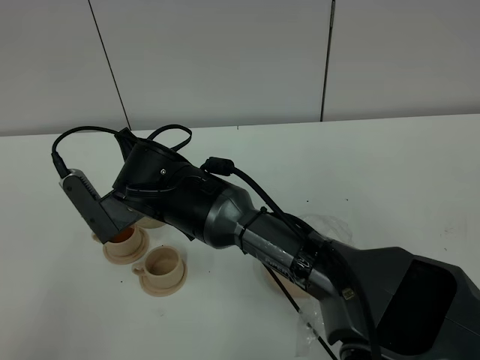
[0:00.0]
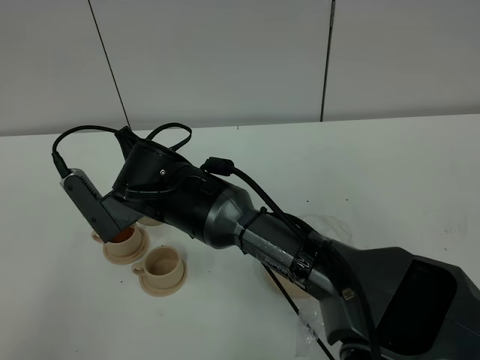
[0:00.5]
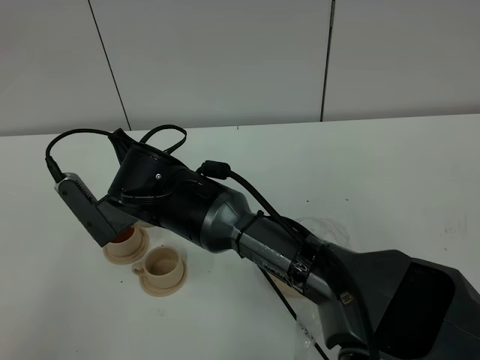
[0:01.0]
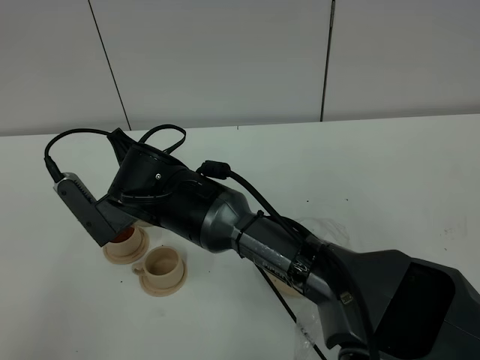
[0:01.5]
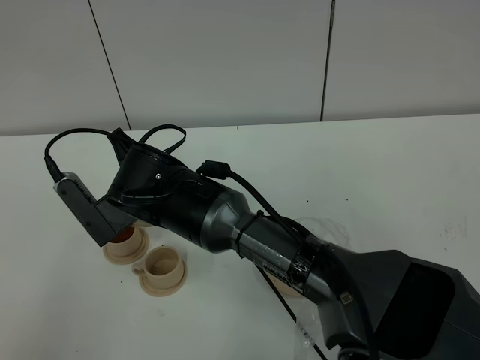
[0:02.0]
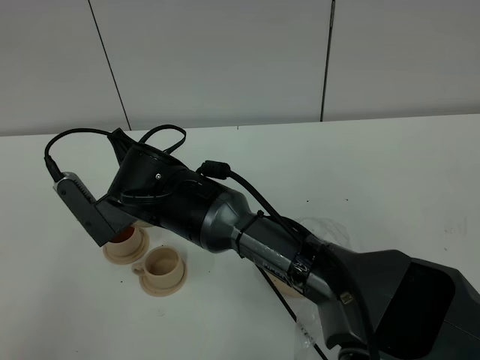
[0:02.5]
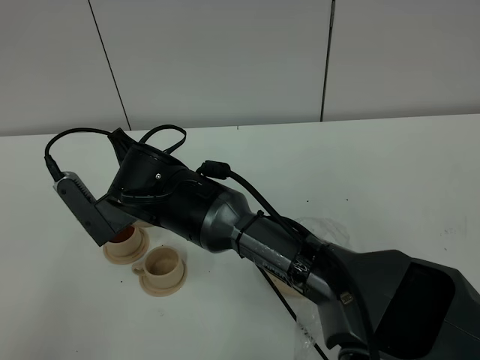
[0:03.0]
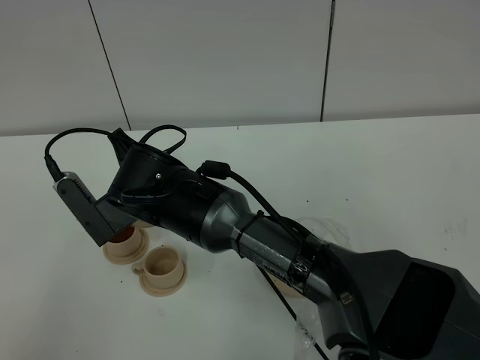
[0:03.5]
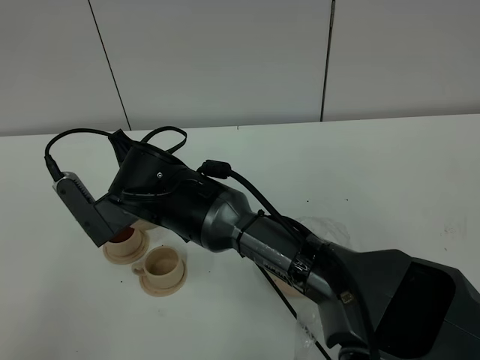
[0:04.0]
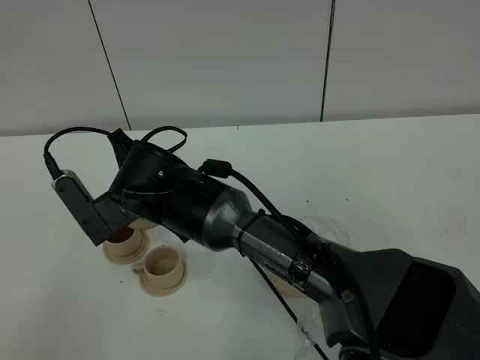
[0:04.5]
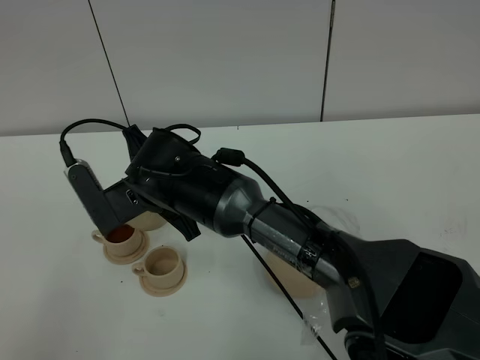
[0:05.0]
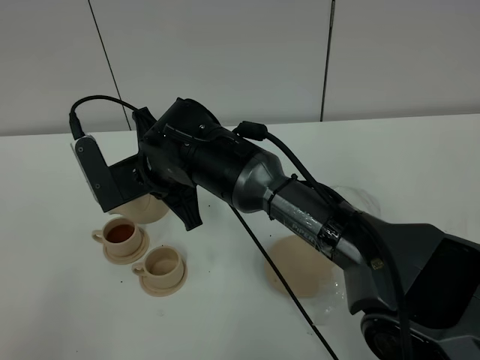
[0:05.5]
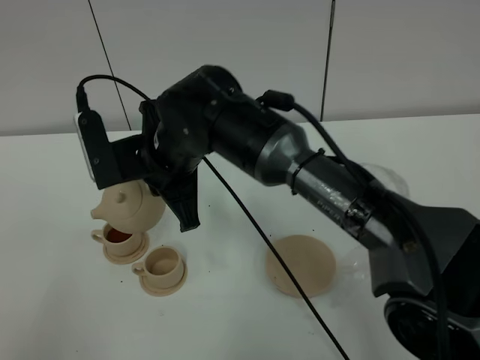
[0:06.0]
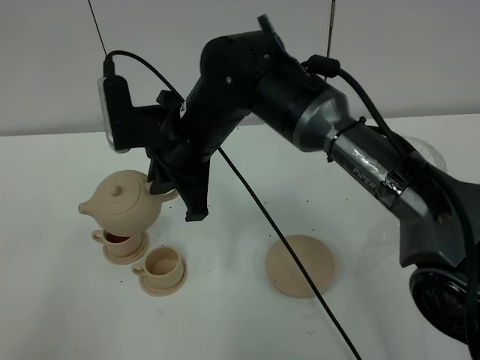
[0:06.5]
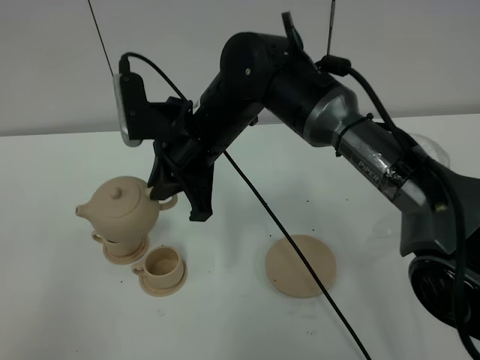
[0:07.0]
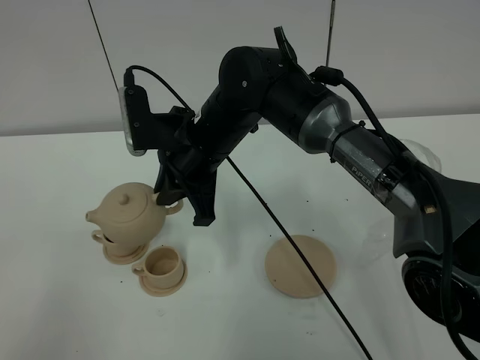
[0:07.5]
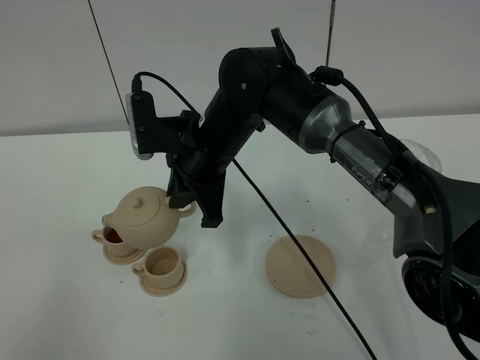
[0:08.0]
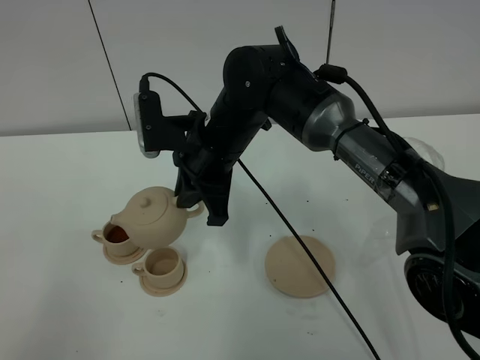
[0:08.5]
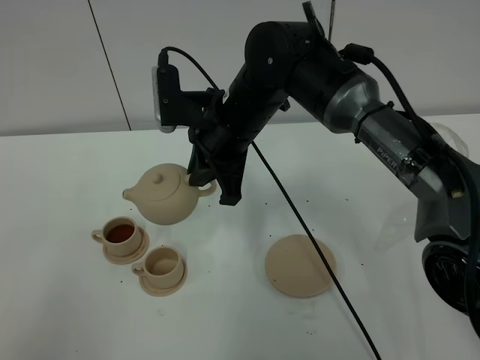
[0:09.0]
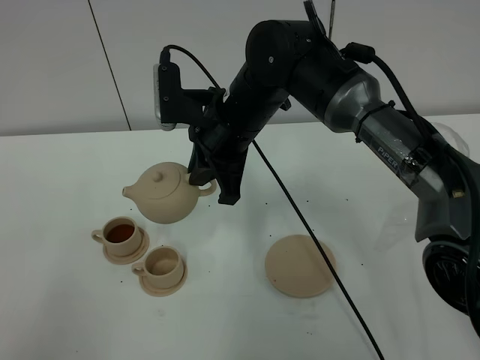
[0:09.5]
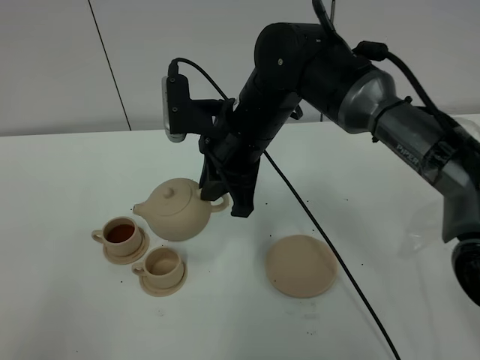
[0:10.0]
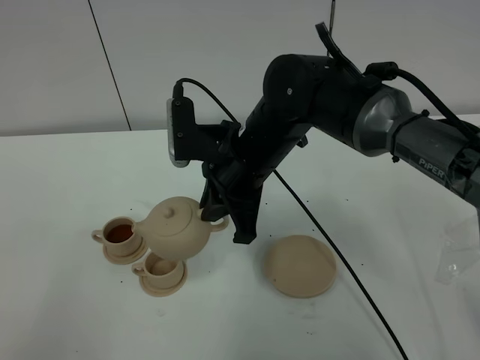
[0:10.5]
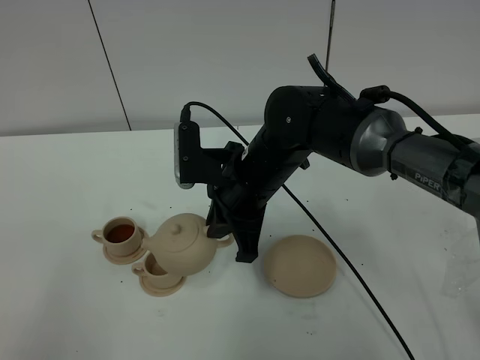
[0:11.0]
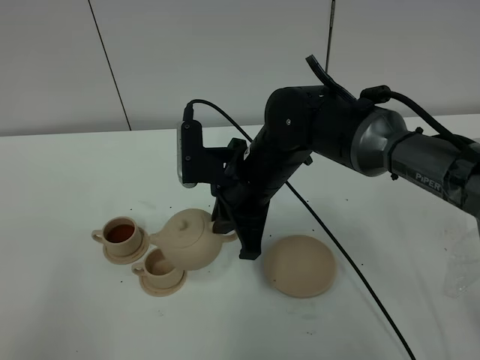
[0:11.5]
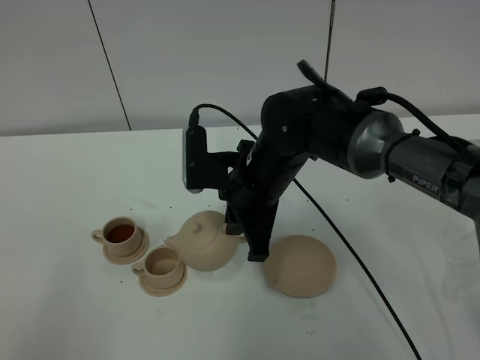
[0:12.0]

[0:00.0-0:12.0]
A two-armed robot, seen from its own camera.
Task of the whole recording: grasp the brown teapot and pour the tea into the two brown teacups one by one, put the brown teapot back in its original place.
0:00.0 to 0:04.0: The two grippers keep their place.
0:04.0 to 0:06.0: The right gripper moves upward, approximately 5 cm.
0:06.0 to 0:08.0: The right gripper changes place by roughly 5 cm.
0:10.0 to 0:12.0: The right gripper travels downward by about 5 cm.

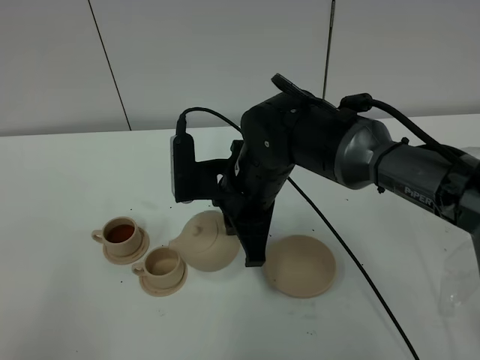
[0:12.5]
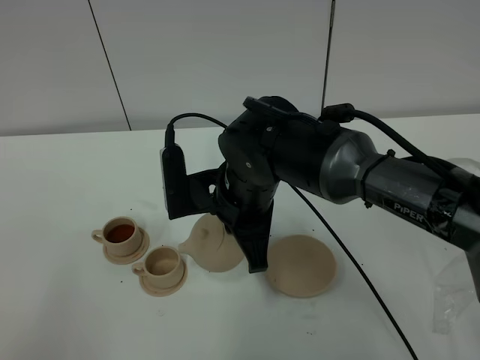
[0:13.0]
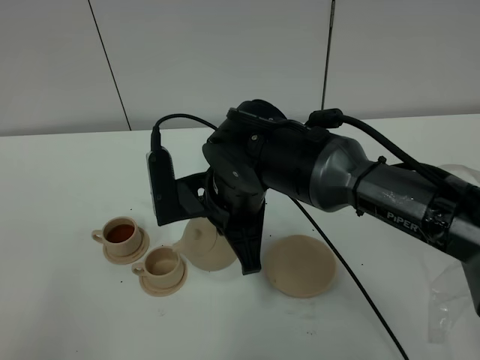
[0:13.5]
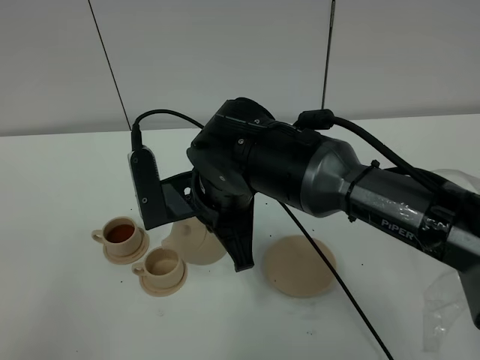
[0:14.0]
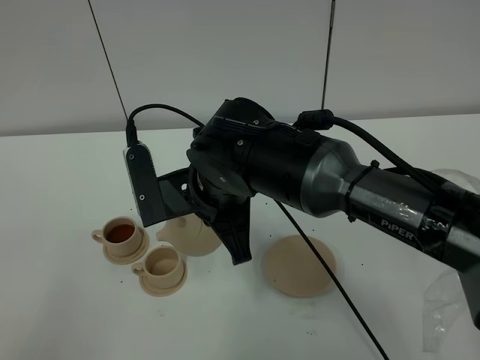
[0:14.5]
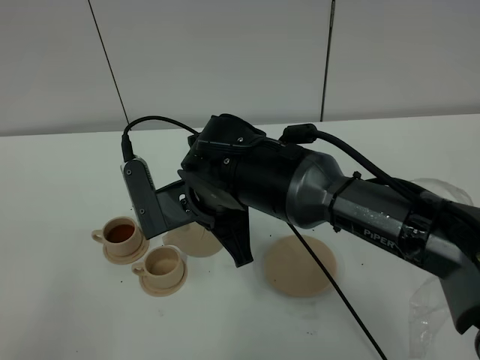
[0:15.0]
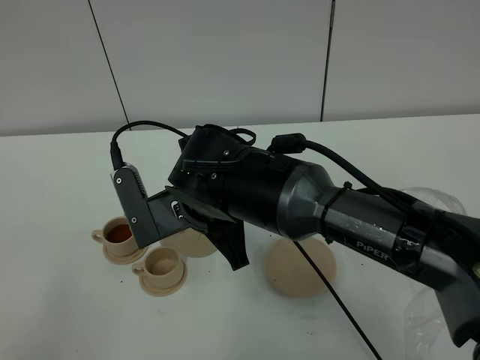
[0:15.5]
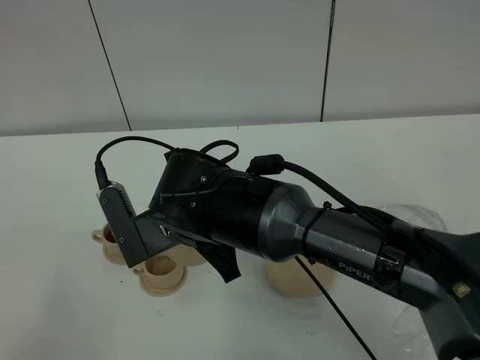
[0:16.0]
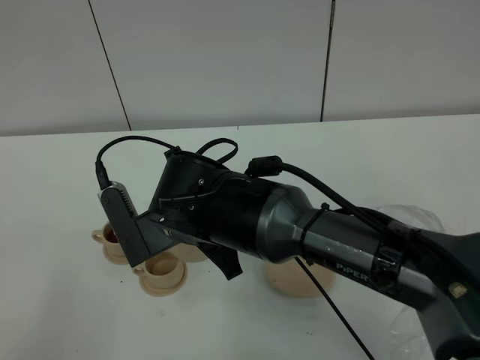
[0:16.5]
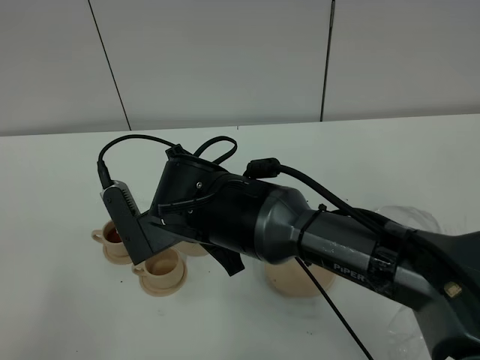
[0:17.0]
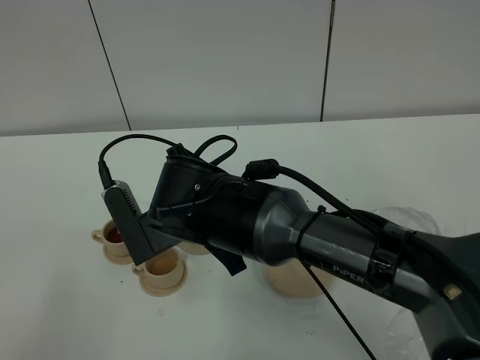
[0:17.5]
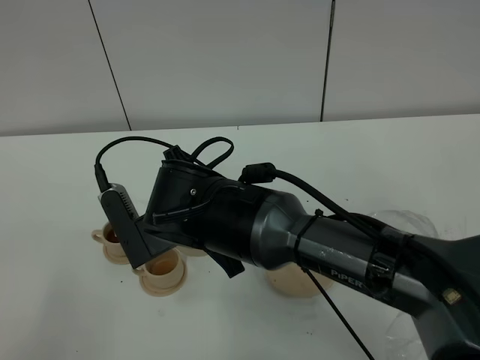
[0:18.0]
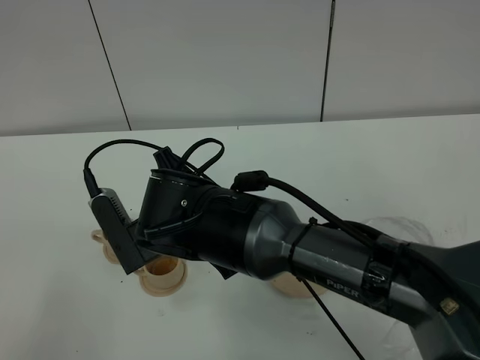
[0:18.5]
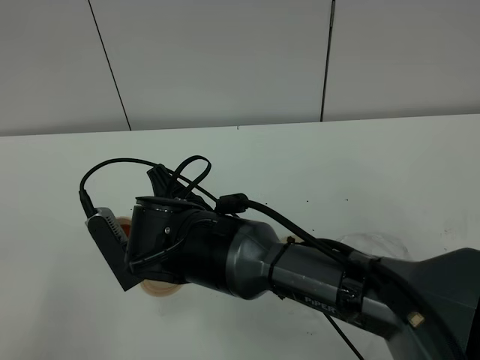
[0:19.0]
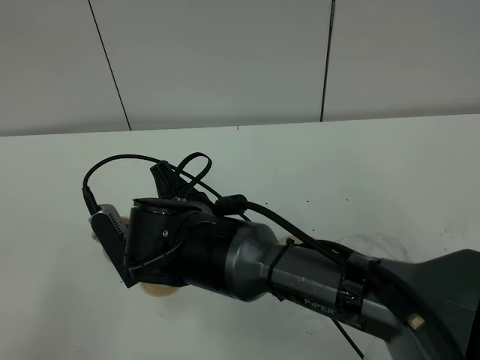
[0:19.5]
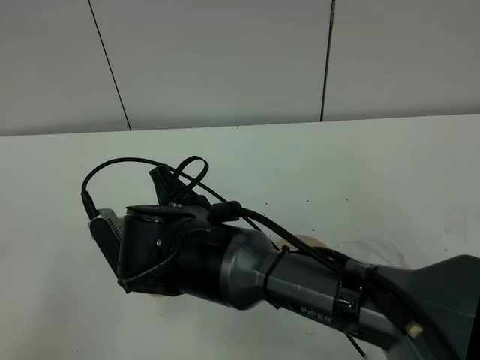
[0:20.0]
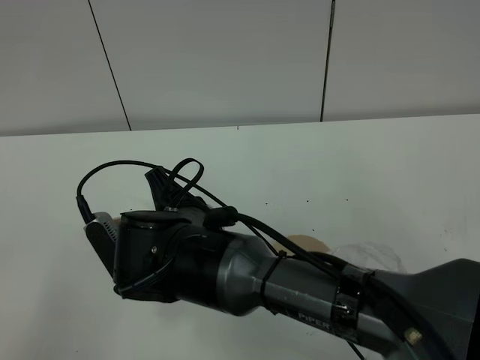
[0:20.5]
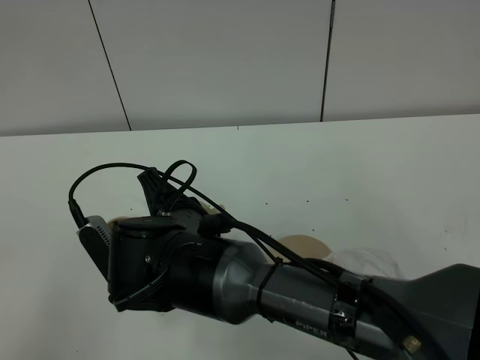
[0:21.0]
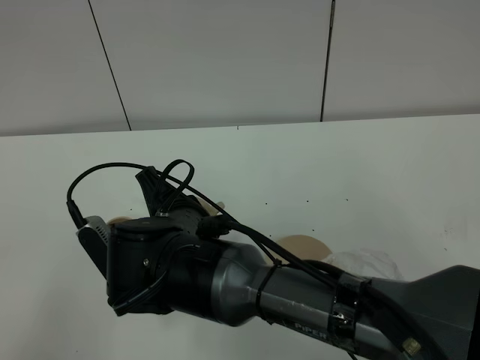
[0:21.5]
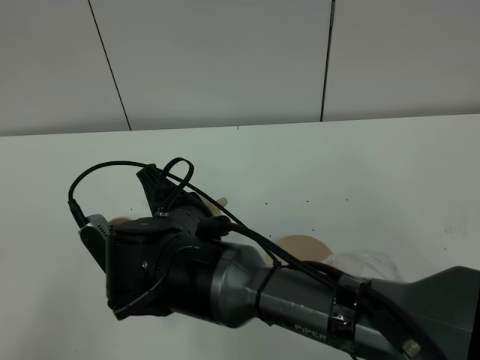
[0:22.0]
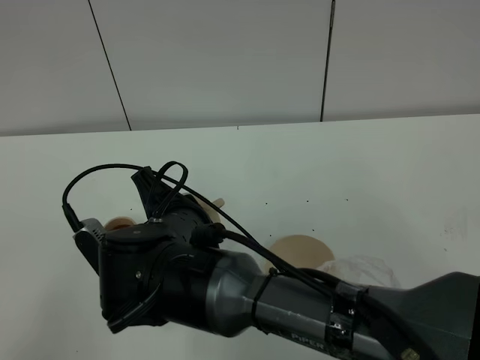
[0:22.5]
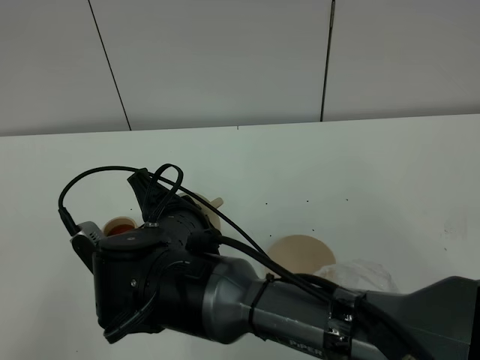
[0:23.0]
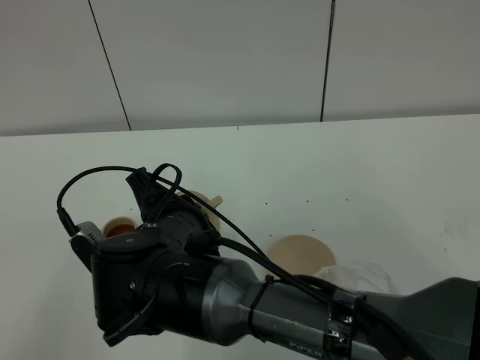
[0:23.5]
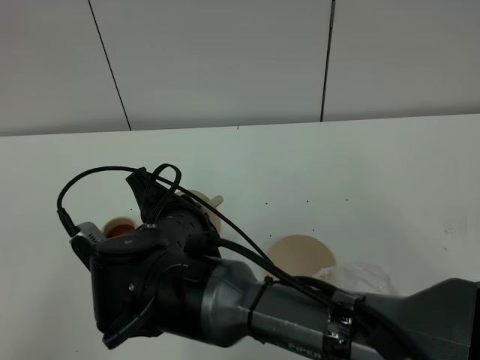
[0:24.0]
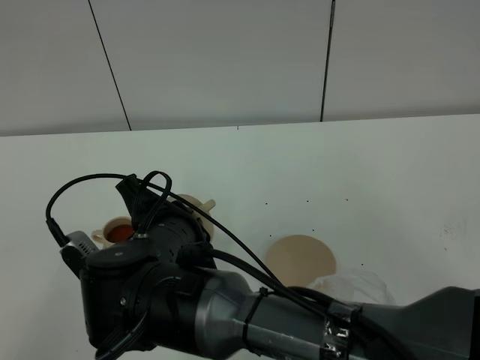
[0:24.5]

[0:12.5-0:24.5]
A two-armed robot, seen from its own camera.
Task of the whole recording: grasp the brown teapot and pour the tea into the two brown teacups one by one, put the brown teapot back in its original place.
0:12.5 to 0:14.5: The right gripper moves some 5 cm.
0:16.5 to 0:18.5: The grippers make only small movements.
0:20.5 to 0:24.5: The grippers stay close to where they were, moving slightly.

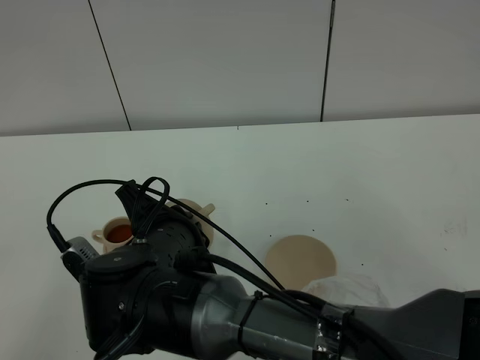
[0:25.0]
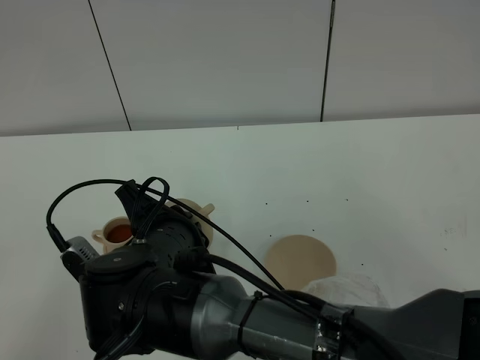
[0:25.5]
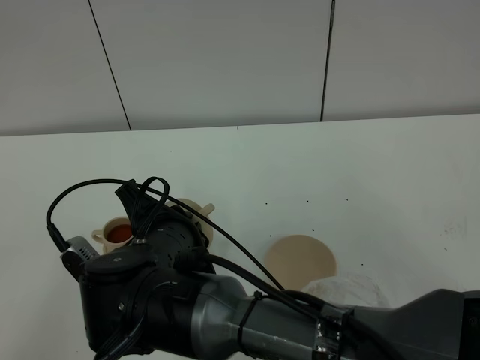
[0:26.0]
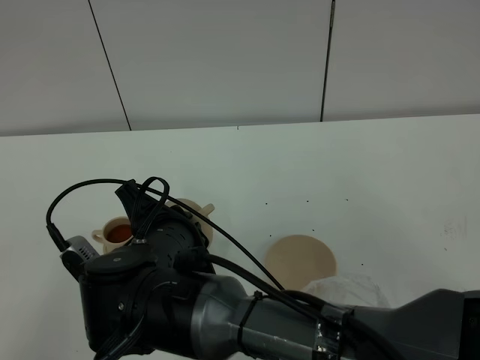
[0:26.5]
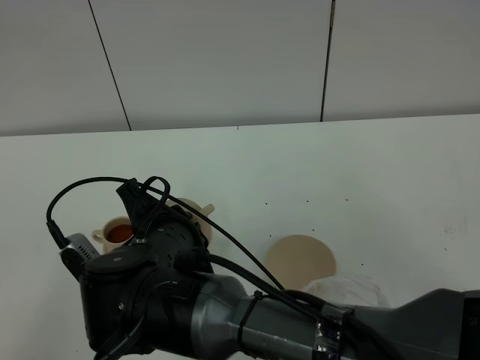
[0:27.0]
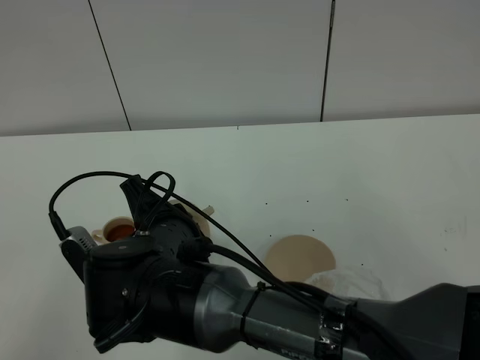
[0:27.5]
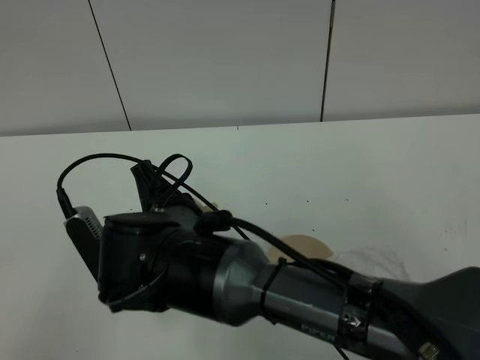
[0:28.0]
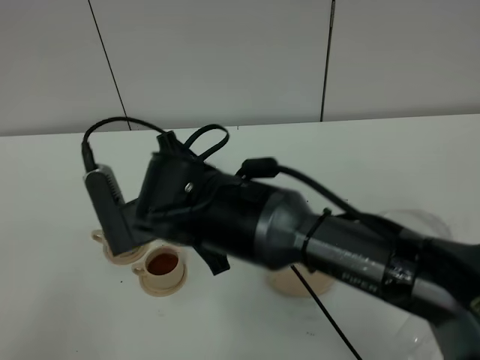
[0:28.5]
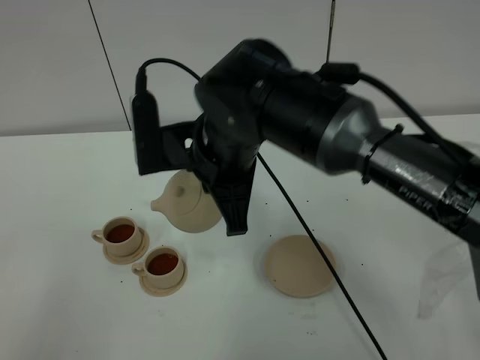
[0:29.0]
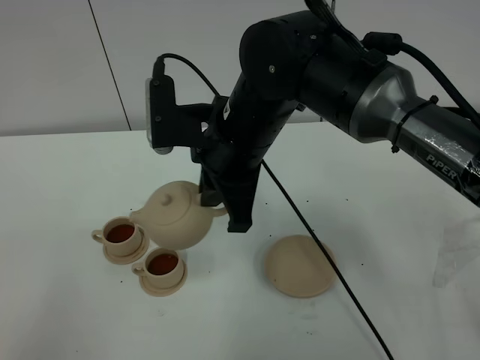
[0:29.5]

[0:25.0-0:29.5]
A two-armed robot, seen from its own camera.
Task of the whole recording: grasp the brown teapot and pour the tea into the two brown teacups one by one, put the brown teapot back in its original place.
Step, 0:25.0 to 0:28.5: Pour tea into the teacup with the right gripper.
0:25.0 to 0:27.0: Neither gripper changes place.
0:27.0 to 0:29.5: The right gripper heads forward, to the right and upward, covering some 15 cm.
